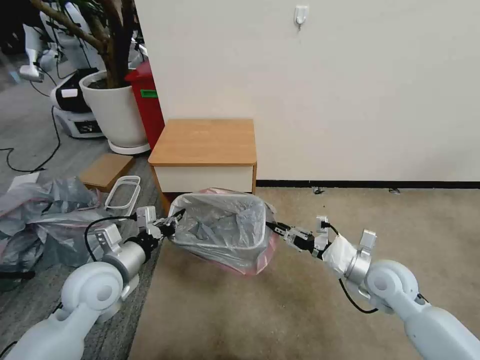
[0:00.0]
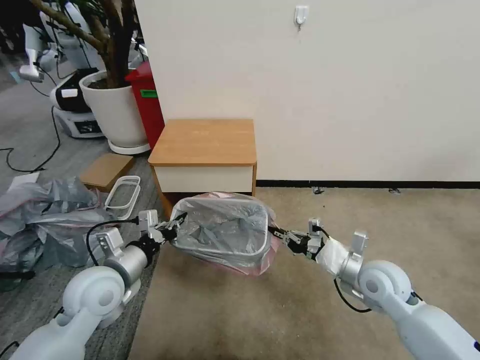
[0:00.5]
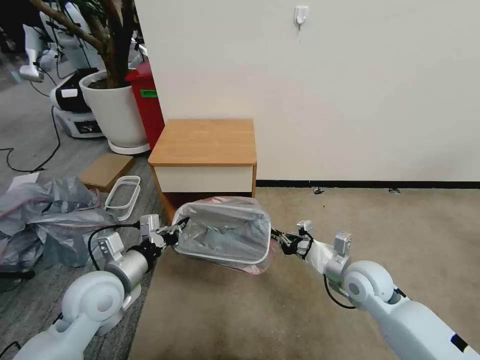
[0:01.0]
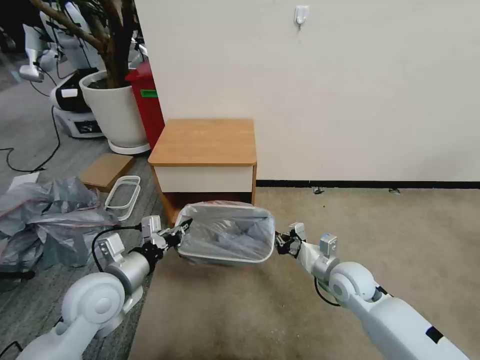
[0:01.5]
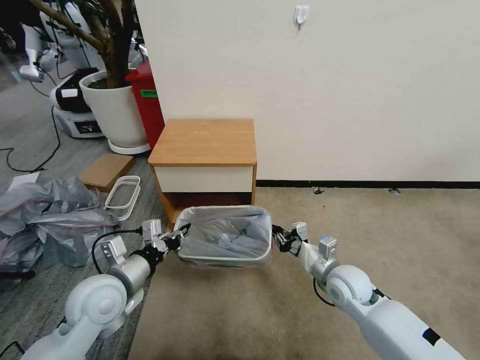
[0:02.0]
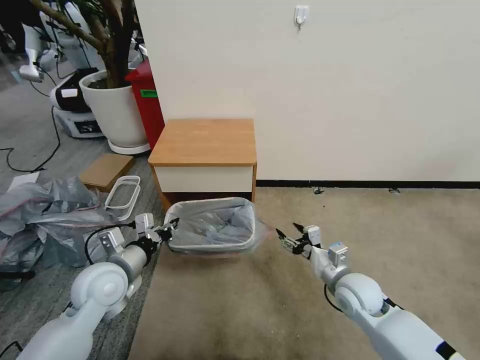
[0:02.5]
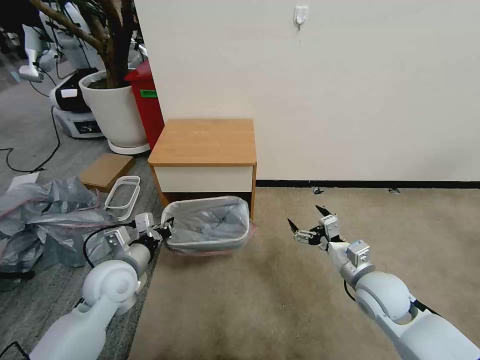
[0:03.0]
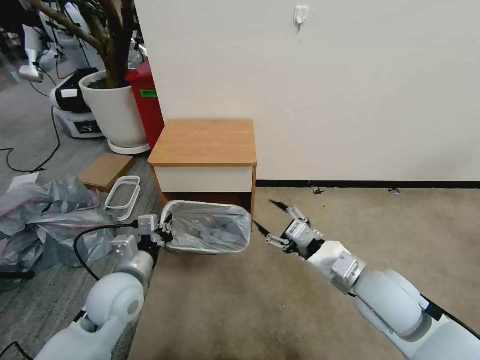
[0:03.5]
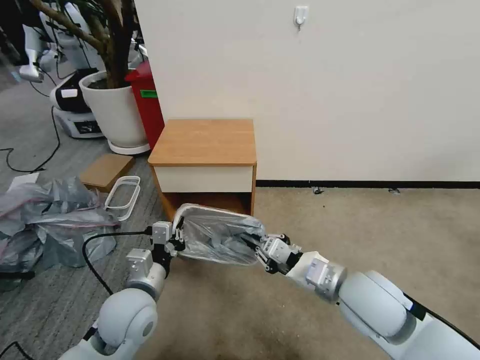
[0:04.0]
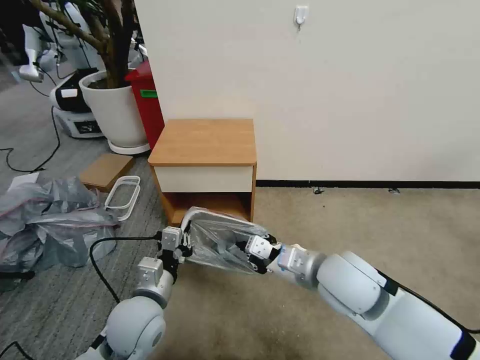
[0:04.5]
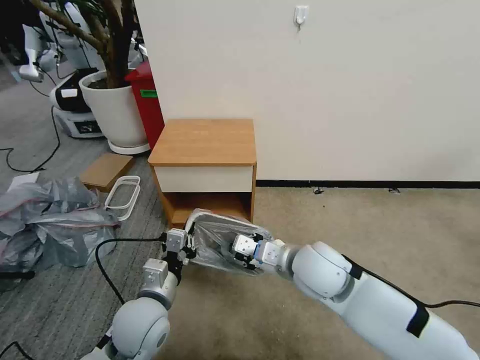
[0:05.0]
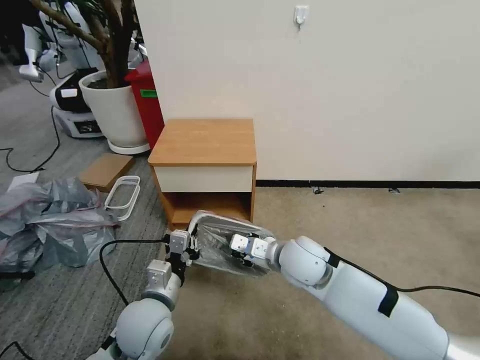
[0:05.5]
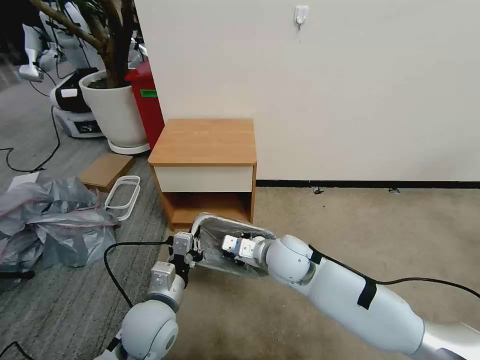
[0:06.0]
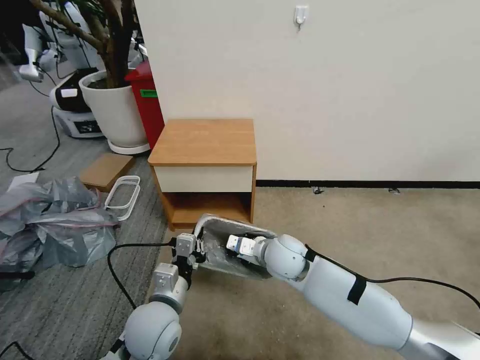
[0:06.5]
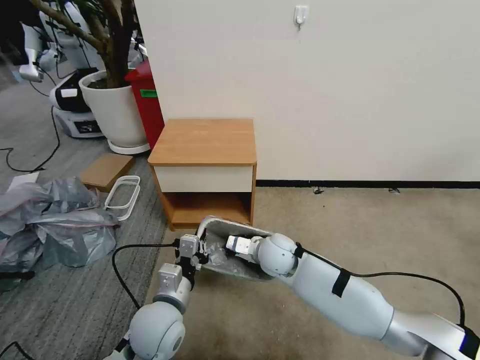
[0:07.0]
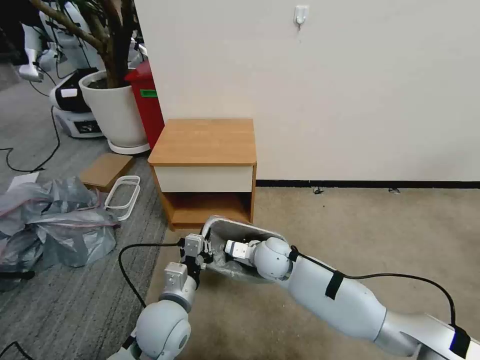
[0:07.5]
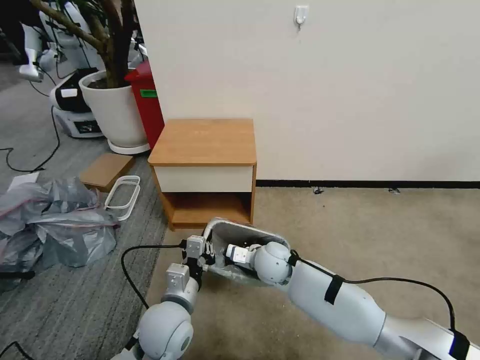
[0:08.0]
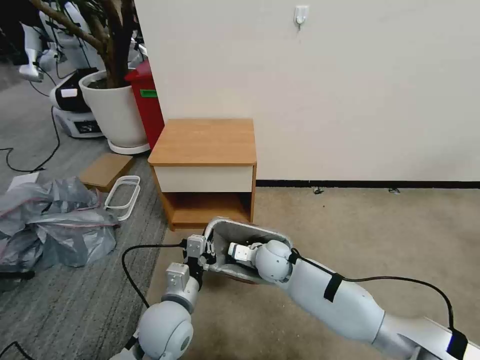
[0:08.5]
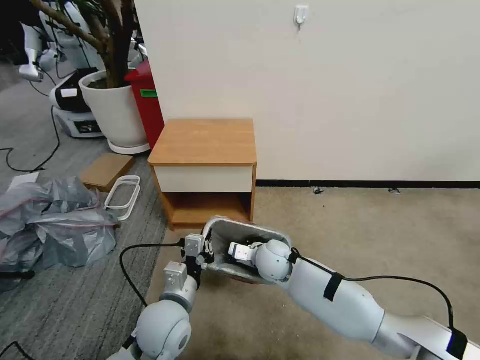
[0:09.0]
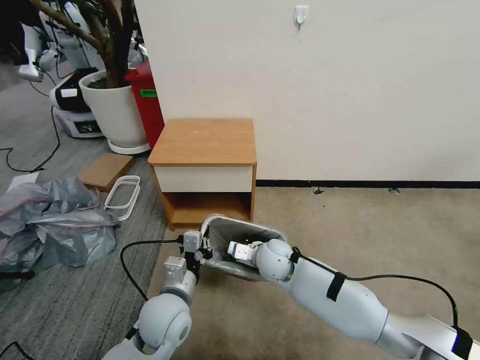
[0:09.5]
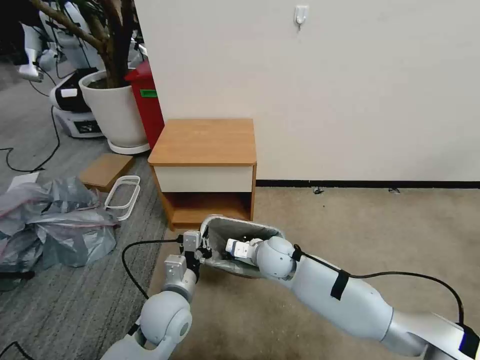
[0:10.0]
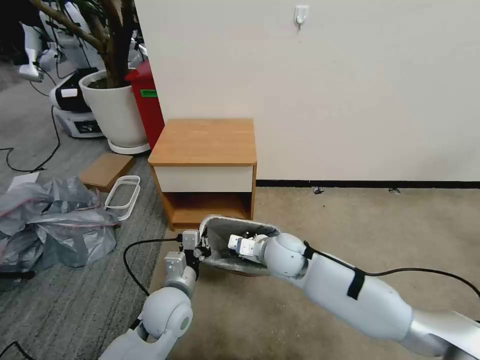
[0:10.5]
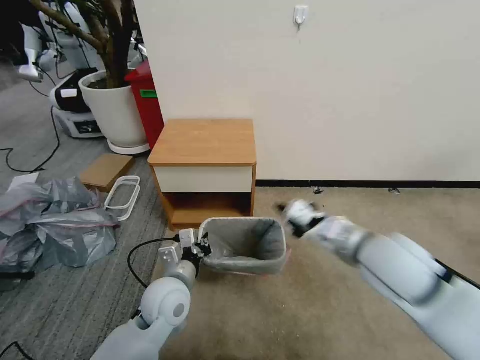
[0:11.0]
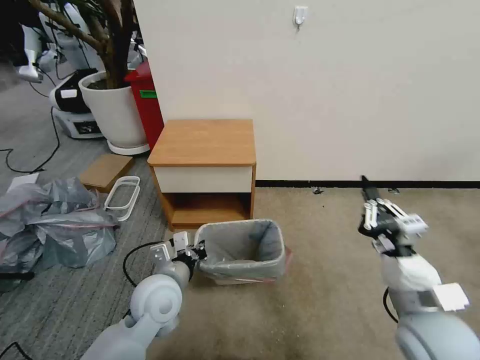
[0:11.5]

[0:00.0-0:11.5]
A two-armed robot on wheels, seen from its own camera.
Task of the whole recording: Pick up the garbage bag from the table and place it over the trash can.
0:00.0 to 0:02.0: The right gripper shifts about 10 cm to the left and downward.
0:02.0 to 0:04.0: The right gripper heads upward and backward, covering about 15 cm, and opens, then closes again. The left gripper goes roughly 5 cm to the right.
0:04.0 to 0:06.0: The right gripper moves to the left, forward and downward, some 15 cm.
0:06.0 to 0:07.5: The right gripper moves downward, some 5 cm.
0:07.5 to 0:09.5: The grippers stay close to where they were, moving slightly.
0:09.5 to 0:11.5: The right gripper shifts some 30 cm to the right, backward and upward.

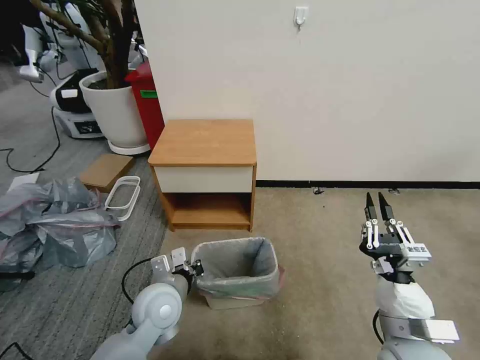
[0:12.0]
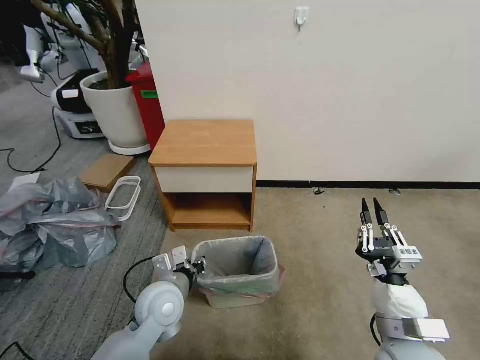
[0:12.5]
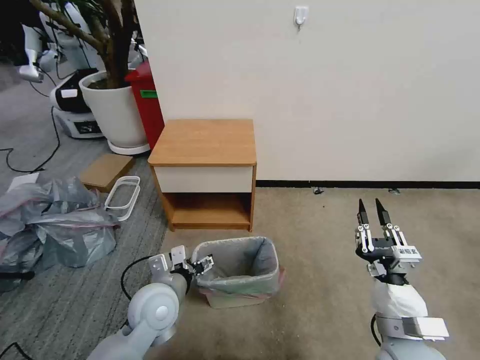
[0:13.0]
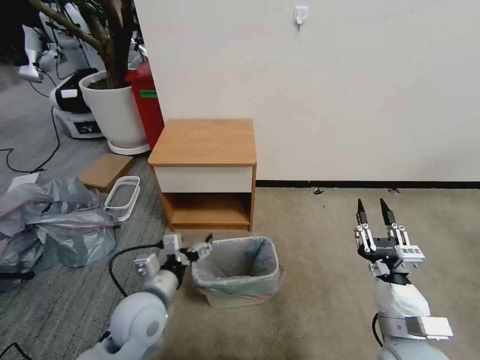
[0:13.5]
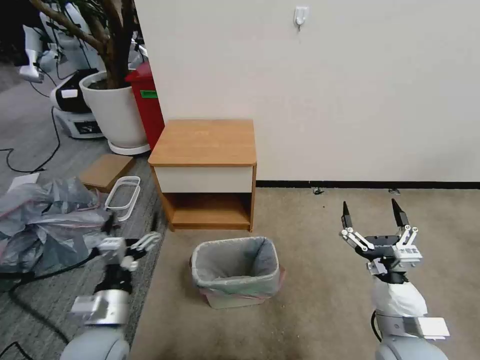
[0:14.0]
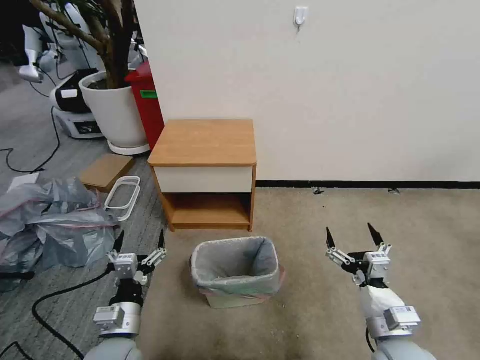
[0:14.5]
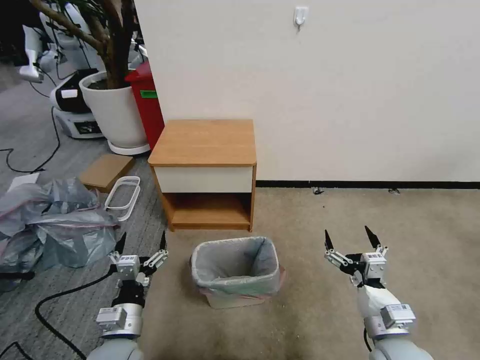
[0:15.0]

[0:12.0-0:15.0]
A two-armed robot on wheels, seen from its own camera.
Task of the whole recording: Pick up the garbage bag from the table and place it over the trash can.
0:12.0 to 0:13.5: The left gripper opens its fingers.
0:13.5 to 0:15.0: The right gripper opens up. Meanwhile the left gripper goes about 10 cm backward and downward.

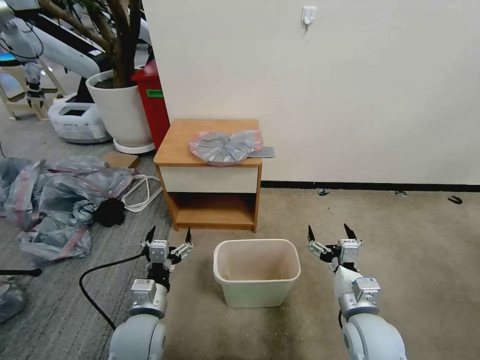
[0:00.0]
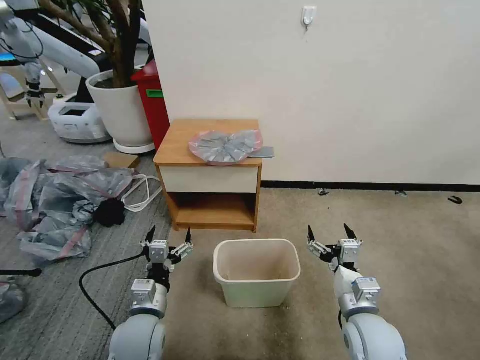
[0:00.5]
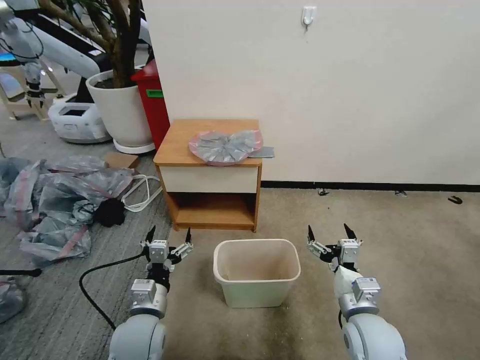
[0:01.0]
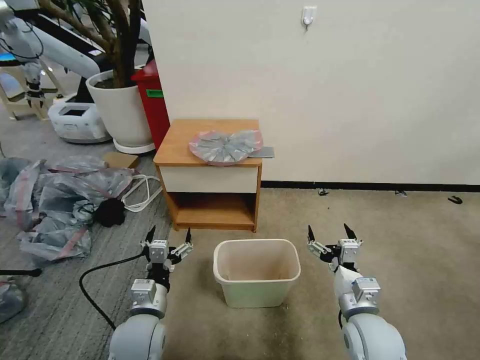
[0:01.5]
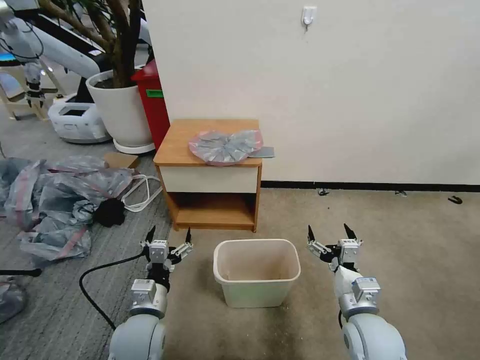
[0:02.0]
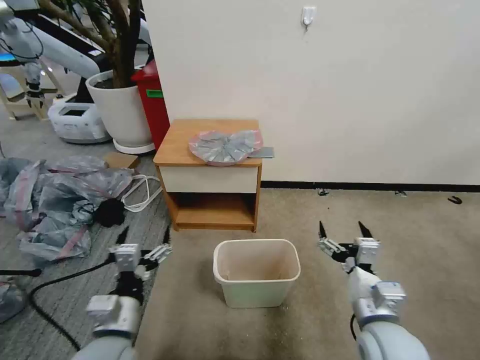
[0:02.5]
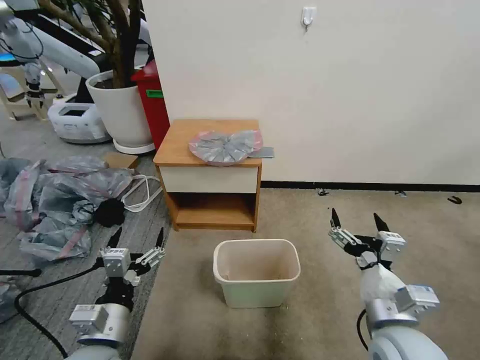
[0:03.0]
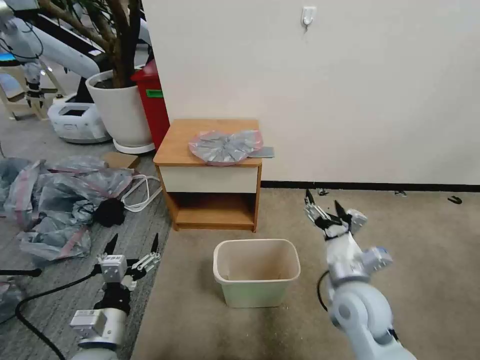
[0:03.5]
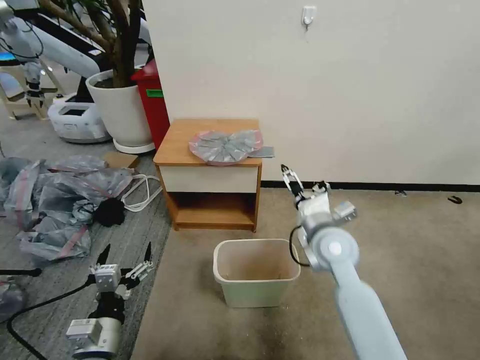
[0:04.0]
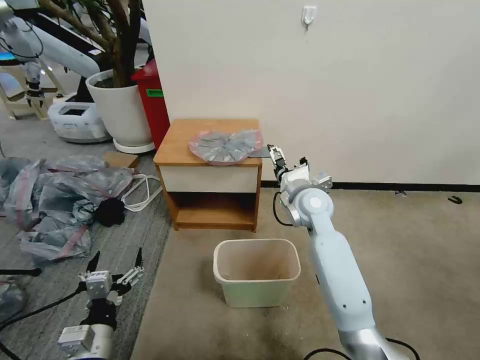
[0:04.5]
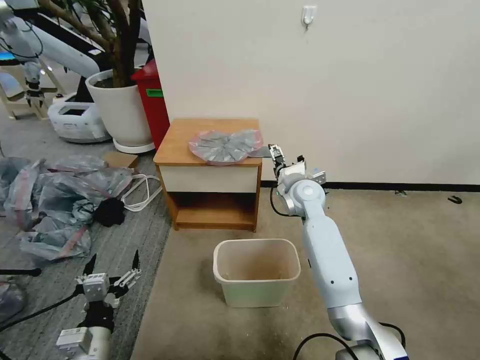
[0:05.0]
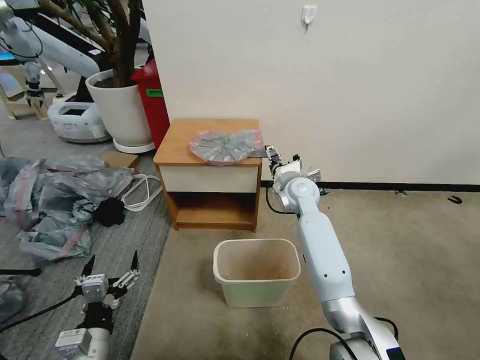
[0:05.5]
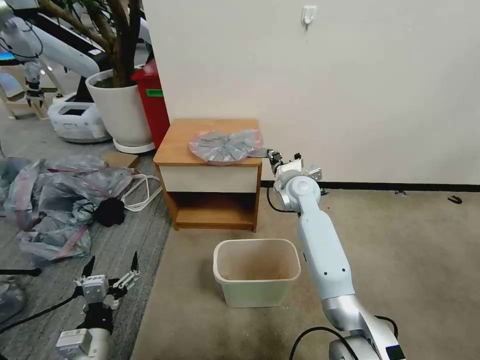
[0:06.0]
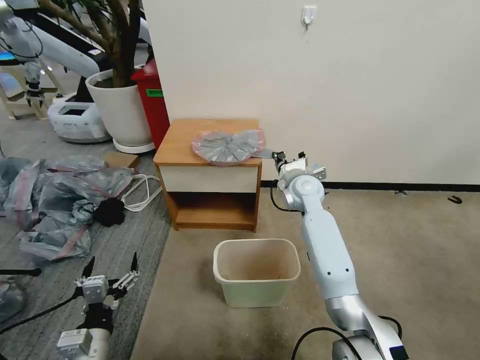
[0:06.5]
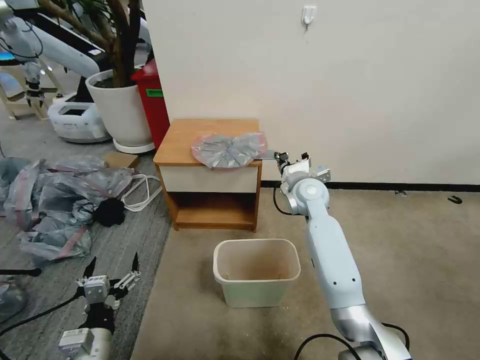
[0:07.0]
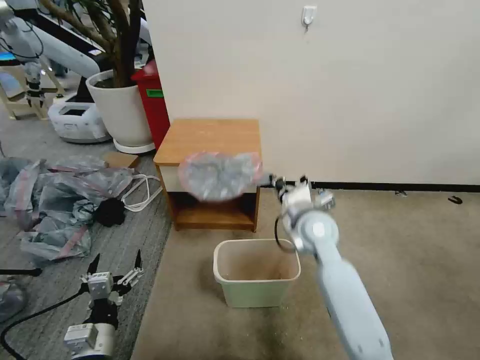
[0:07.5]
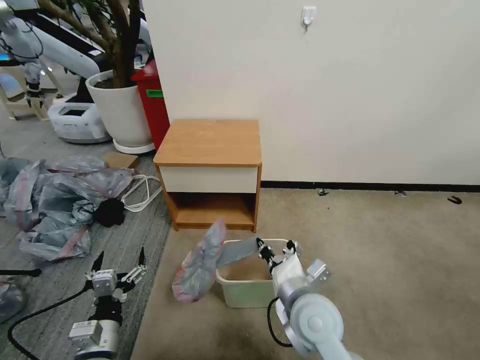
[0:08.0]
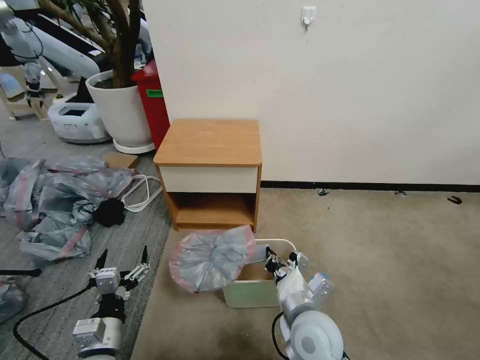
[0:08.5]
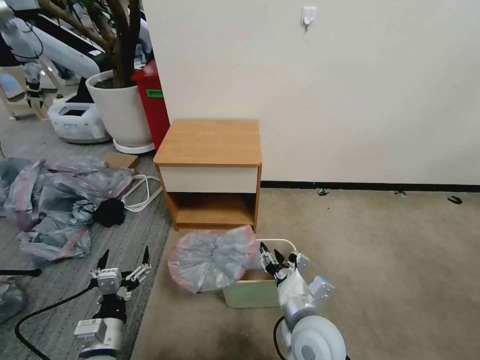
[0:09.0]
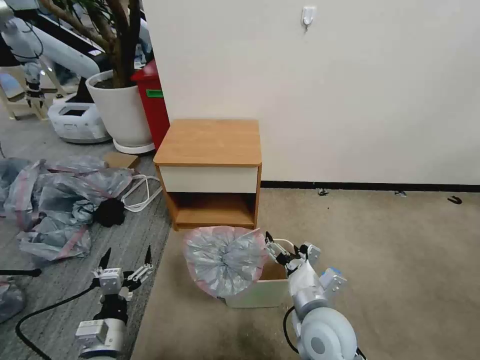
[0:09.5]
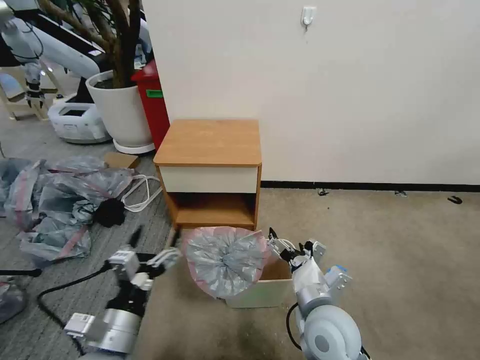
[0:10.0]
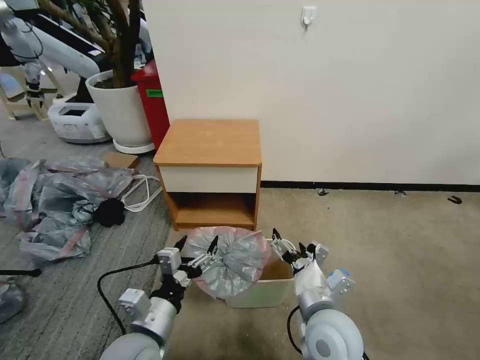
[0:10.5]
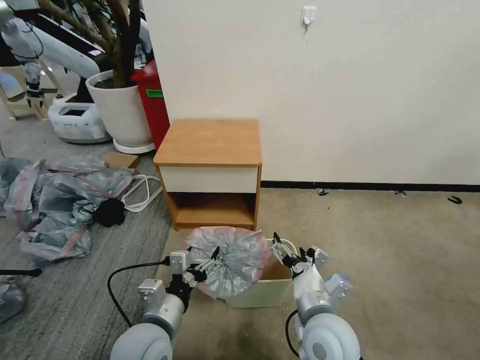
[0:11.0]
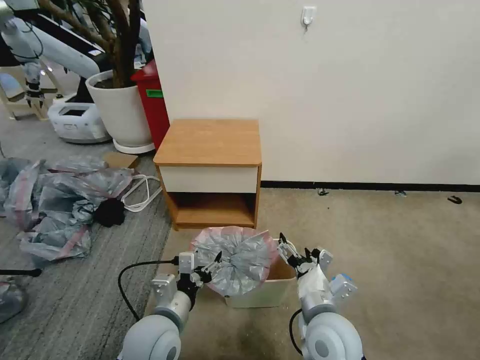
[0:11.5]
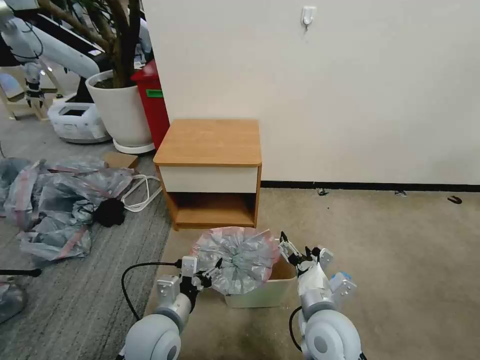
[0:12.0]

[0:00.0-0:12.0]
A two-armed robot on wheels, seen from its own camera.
Task of the whole recording: Pick up the garbage bag from the table and place it over the trash can.
0:02.0 to 0:04.0: The right gripper goes some 20 cm forward, upward and to the left. Meanwhile the left gripper heads backward and to the left, covering roughly 10 cm, and moves some 10 cm upward and comes back.
0:04.0 to 0:06.0: The right gripper is displaced forward by approximately 15 cm, and closes its fingers.
0:06.0 to 0:08.0: The right gripper goes approximately 30 cm backward.
0:08.0 to 0:10.0: The left gripper moves upward and to the right, roughly 10 cm. Meanwhile the right gripper opens.
0:10.0 to 0:12.0: The left gripper heads forward, downward and to the right, covering some 10 cm.
